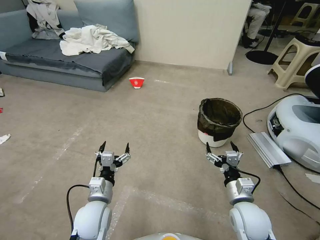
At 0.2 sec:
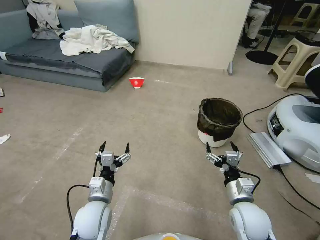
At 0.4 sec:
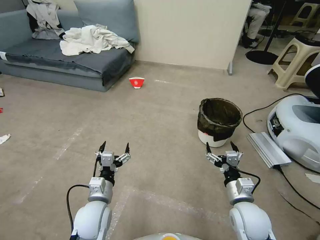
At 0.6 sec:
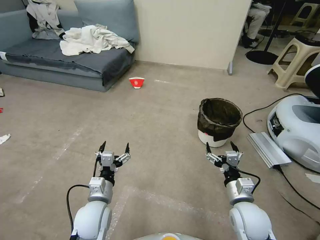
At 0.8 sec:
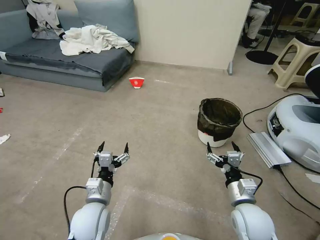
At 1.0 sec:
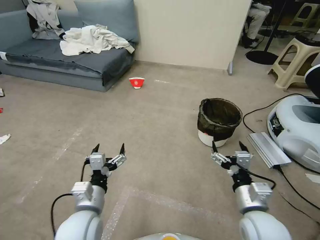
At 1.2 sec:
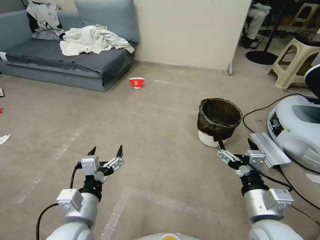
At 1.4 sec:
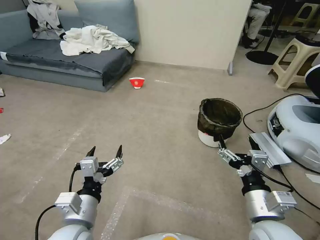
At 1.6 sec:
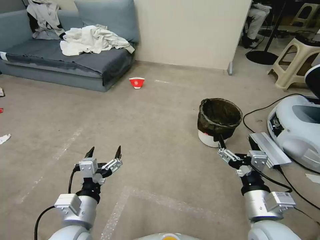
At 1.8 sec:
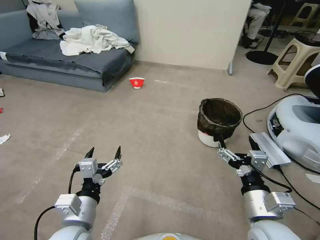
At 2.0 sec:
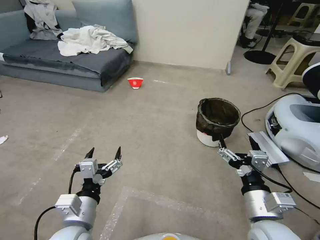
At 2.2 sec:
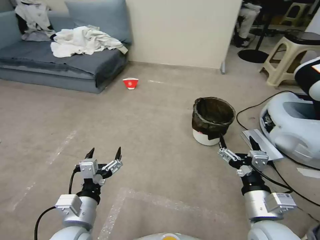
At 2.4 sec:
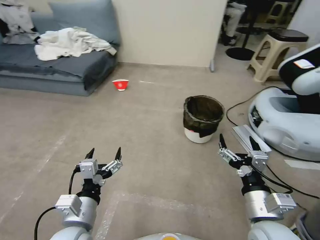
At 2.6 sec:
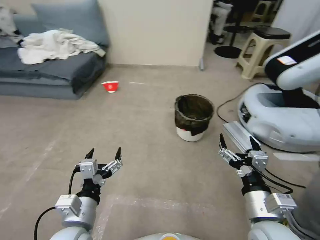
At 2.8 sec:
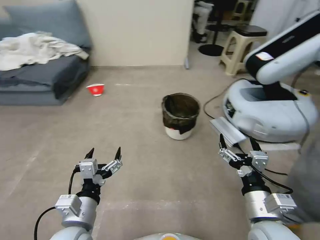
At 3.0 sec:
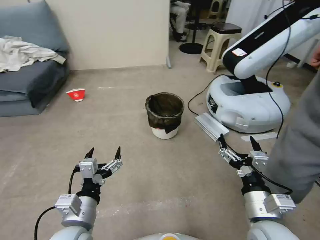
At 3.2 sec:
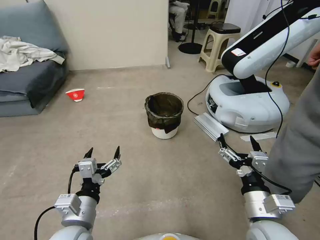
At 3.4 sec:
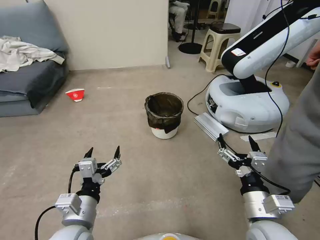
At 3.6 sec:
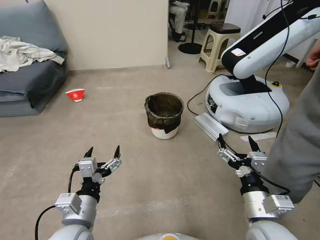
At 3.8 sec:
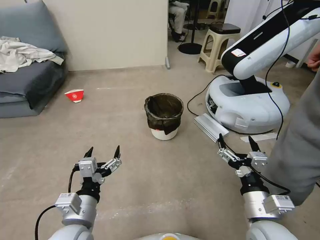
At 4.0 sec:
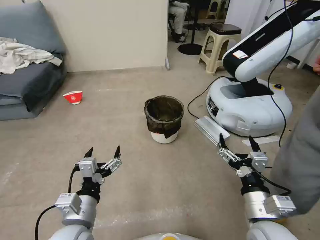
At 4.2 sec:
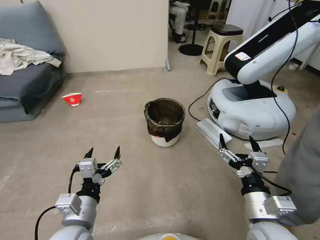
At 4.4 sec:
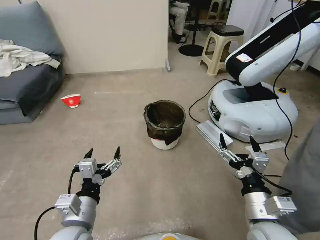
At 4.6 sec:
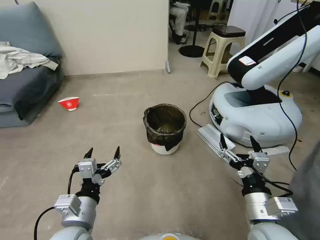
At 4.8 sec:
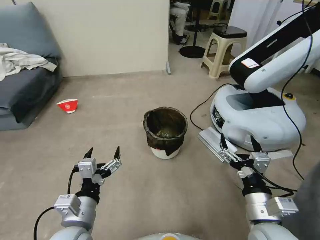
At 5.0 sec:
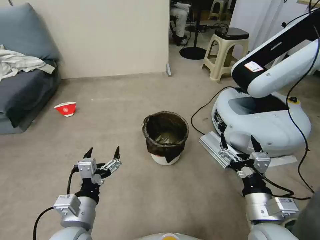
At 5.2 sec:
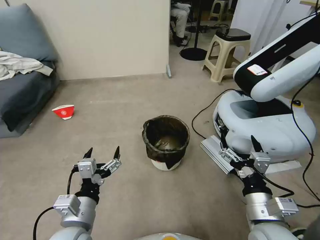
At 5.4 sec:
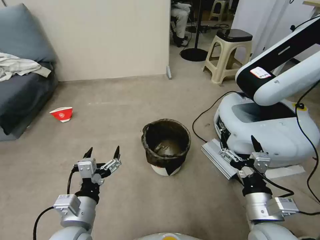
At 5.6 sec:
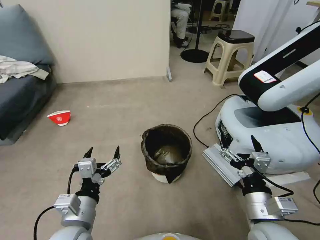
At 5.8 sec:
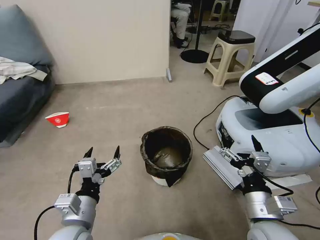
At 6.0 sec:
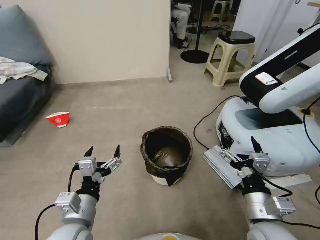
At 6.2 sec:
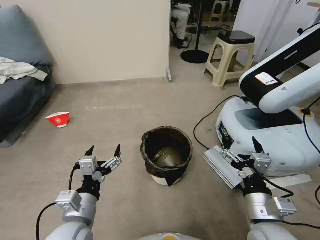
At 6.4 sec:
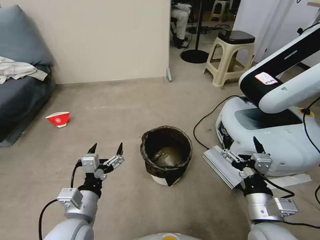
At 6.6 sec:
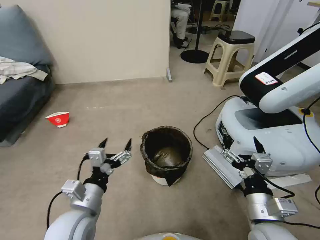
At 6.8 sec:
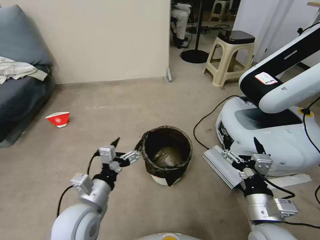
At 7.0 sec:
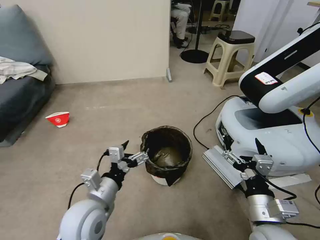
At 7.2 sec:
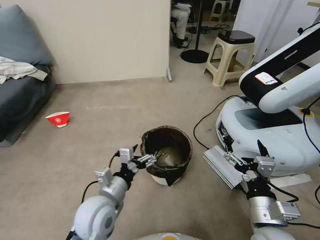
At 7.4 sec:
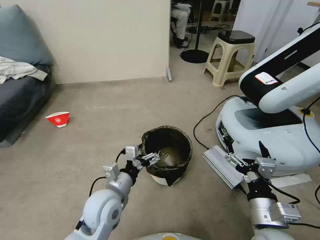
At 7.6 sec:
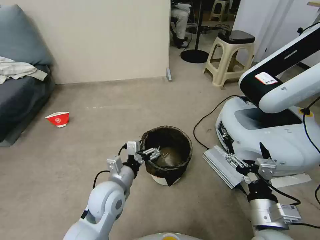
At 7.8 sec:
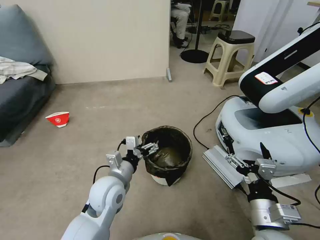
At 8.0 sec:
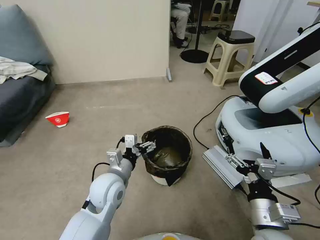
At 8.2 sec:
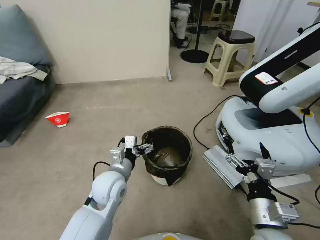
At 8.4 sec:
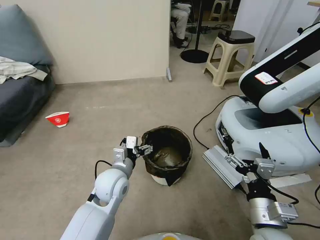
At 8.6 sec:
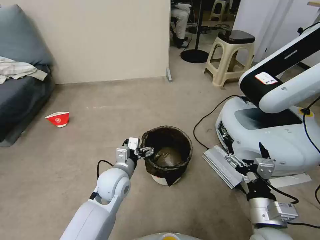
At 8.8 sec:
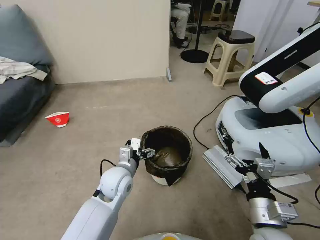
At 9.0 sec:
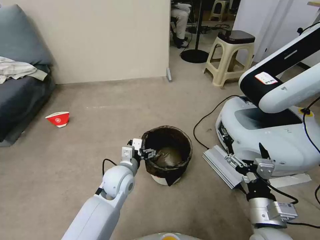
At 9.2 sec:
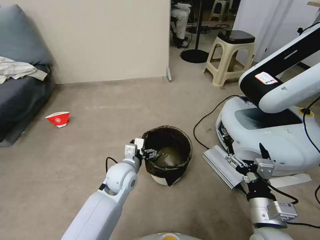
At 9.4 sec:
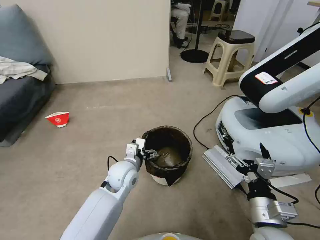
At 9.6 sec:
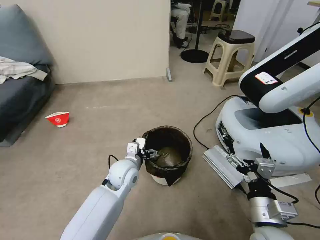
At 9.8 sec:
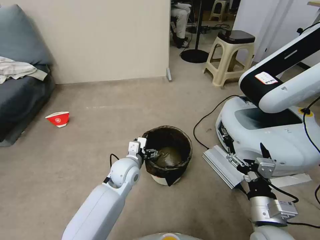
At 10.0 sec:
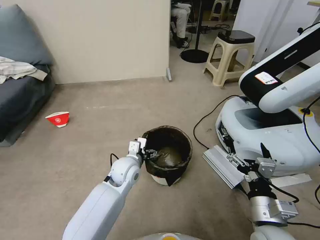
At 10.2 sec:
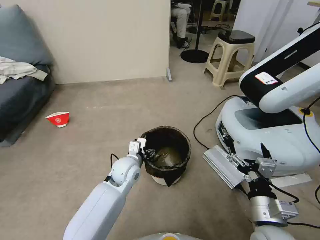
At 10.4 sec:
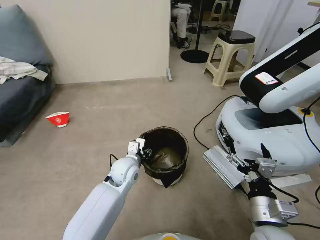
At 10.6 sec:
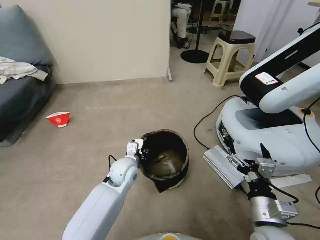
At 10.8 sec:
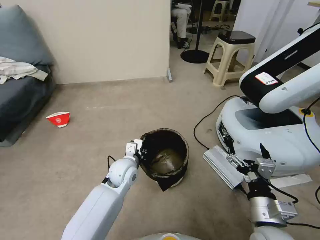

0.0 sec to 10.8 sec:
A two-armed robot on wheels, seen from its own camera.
Task of the whole recording: Pick up the trash can from the floor.
6.2 sec to 7.8 sec: The left gripper heads forward and to the right, covering about 15 cm.
7.8 sec to 9.2 sec: The left gripper shifts approximately 5 cm forward.
9.2 sec to 10.8 sec: The left gripper closes up.

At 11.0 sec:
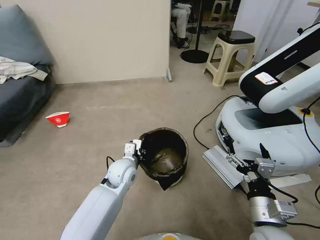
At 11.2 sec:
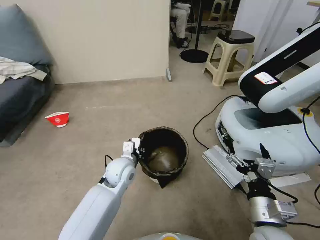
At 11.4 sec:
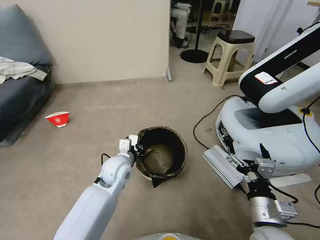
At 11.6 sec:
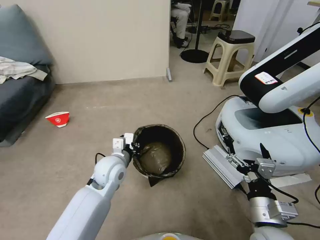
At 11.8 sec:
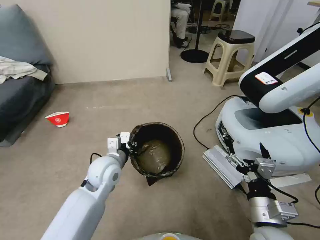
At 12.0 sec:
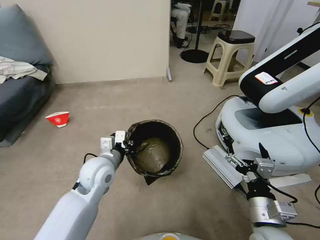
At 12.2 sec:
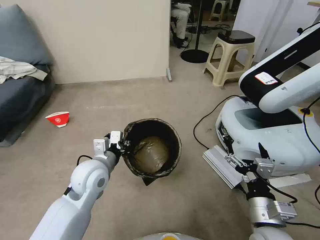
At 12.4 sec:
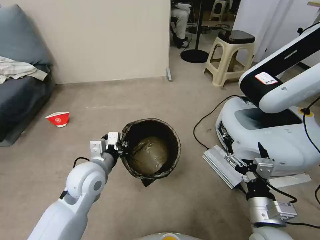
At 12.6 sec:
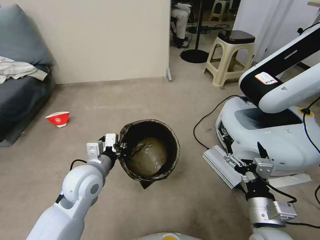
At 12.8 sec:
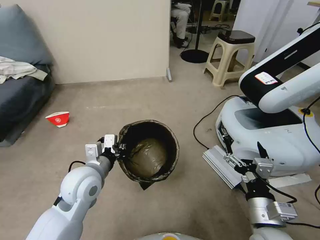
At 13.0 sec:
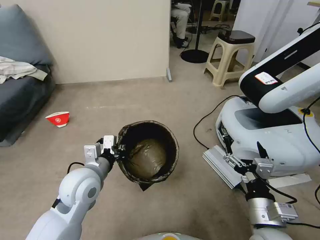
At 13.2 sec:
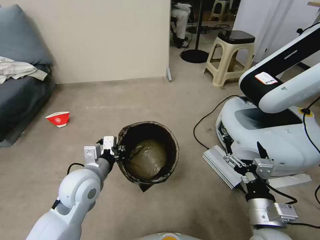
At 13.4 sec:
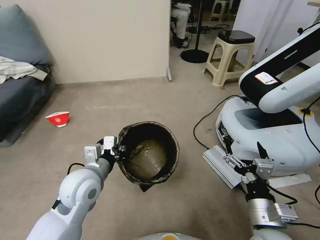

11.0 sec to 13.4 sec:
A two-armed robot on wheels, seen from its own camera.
Task of the whole recording: Pick up the trash can from the floor.
11.0 sec to 12.2 sec: The left gripper goes some 15 cm upward, to the left and backward.
12.2 sec to 13.4 sec: The grippers move only a little.
